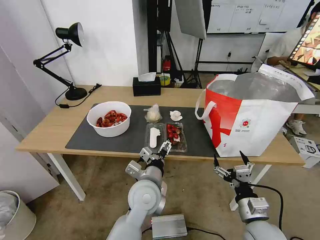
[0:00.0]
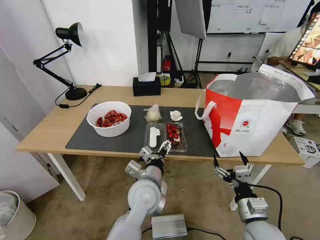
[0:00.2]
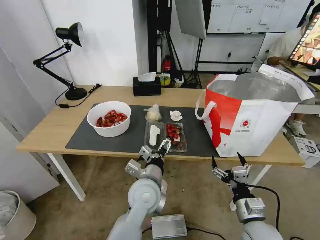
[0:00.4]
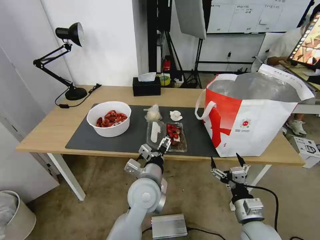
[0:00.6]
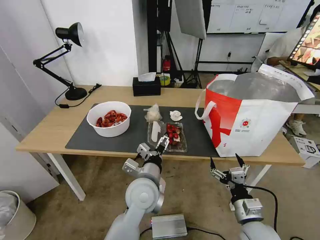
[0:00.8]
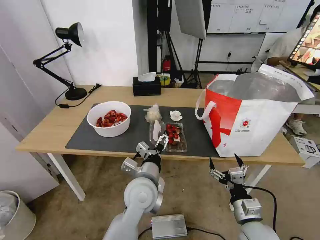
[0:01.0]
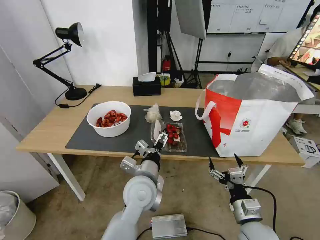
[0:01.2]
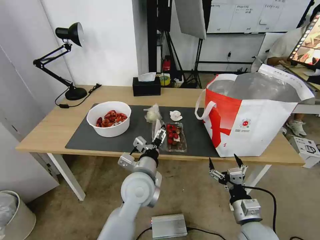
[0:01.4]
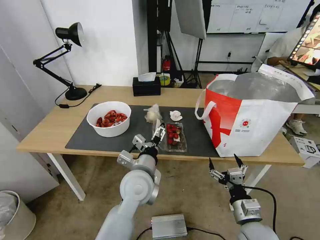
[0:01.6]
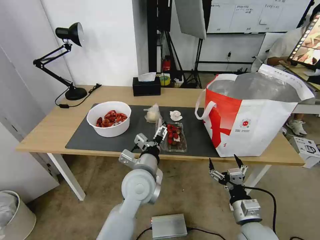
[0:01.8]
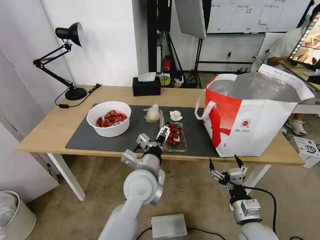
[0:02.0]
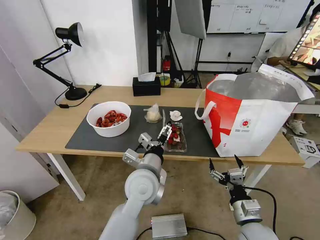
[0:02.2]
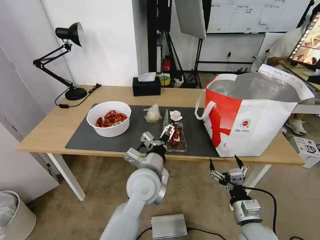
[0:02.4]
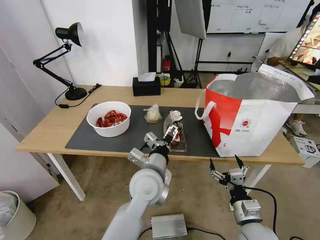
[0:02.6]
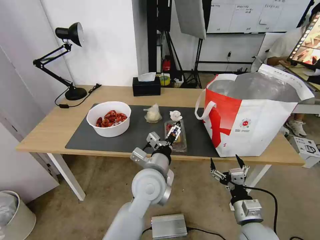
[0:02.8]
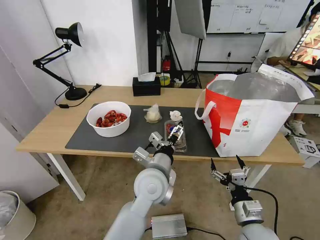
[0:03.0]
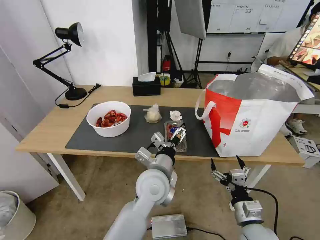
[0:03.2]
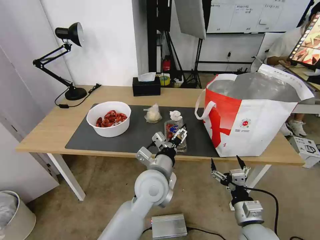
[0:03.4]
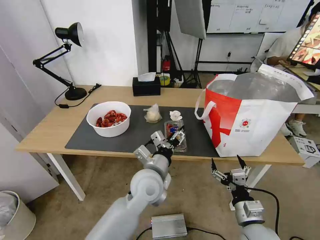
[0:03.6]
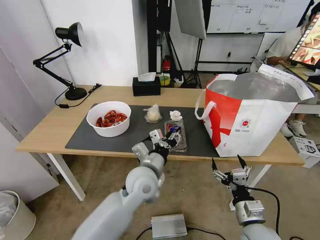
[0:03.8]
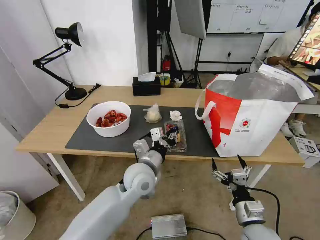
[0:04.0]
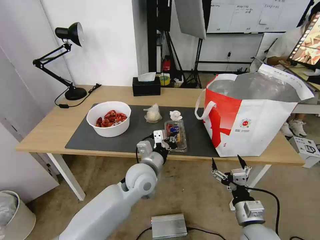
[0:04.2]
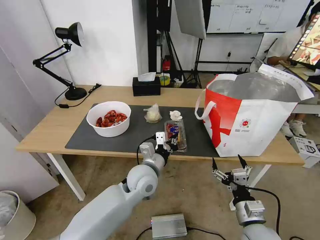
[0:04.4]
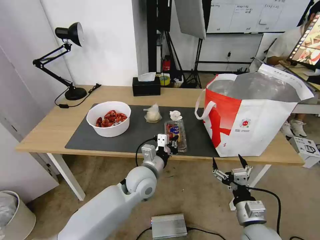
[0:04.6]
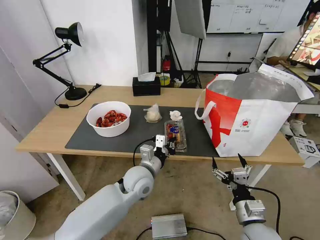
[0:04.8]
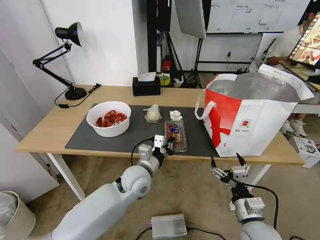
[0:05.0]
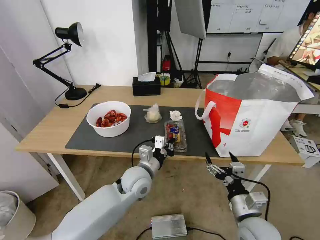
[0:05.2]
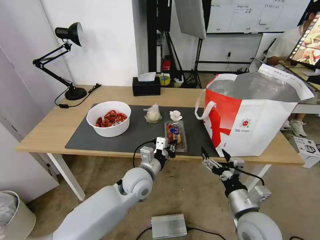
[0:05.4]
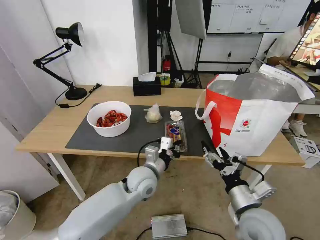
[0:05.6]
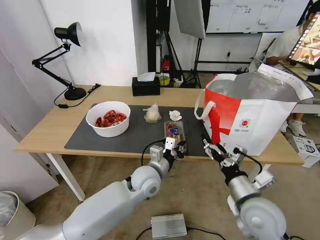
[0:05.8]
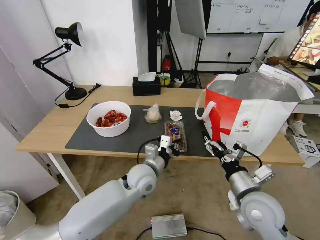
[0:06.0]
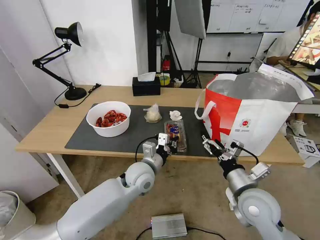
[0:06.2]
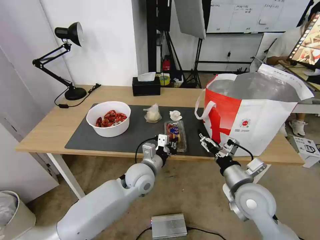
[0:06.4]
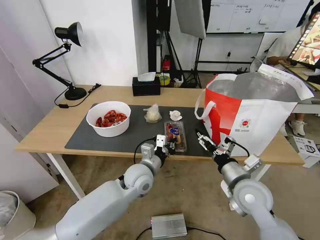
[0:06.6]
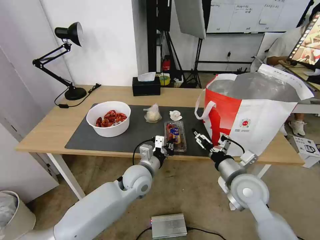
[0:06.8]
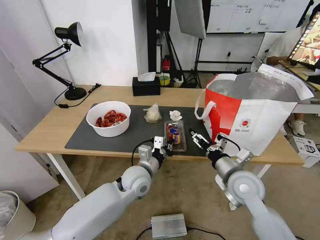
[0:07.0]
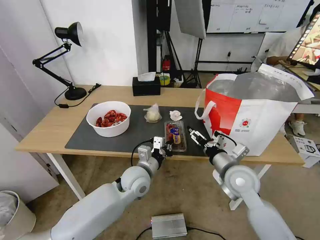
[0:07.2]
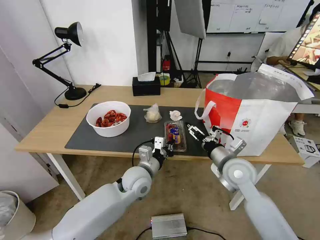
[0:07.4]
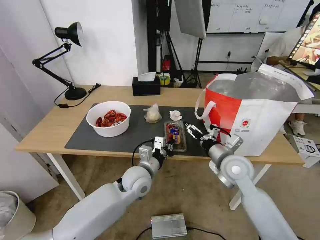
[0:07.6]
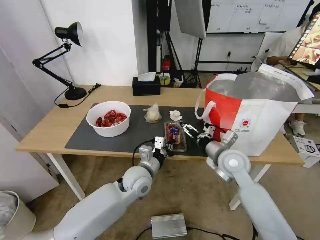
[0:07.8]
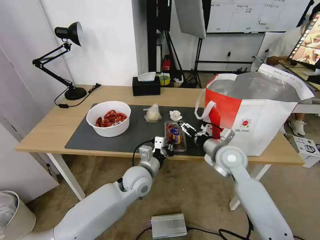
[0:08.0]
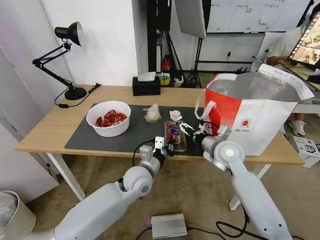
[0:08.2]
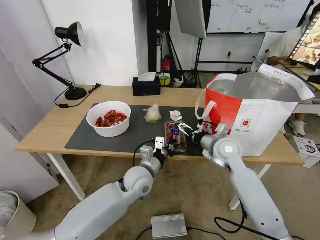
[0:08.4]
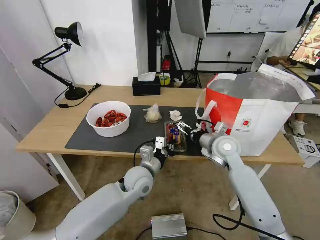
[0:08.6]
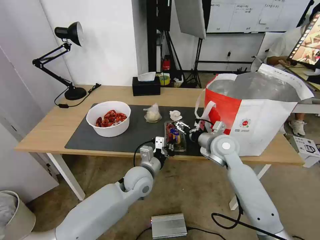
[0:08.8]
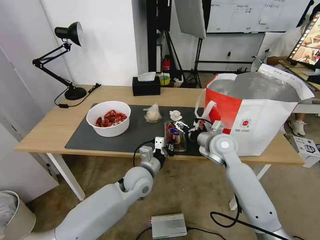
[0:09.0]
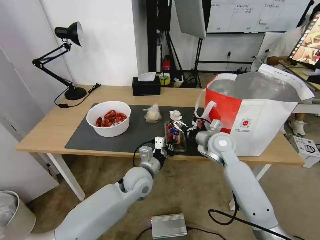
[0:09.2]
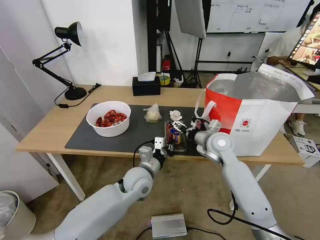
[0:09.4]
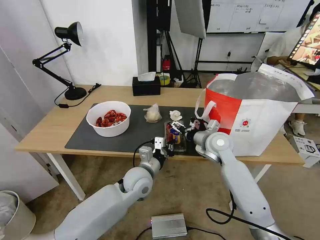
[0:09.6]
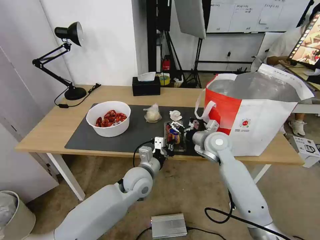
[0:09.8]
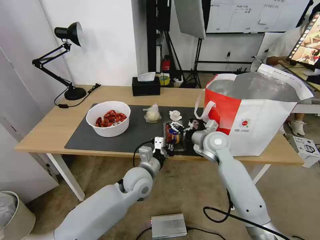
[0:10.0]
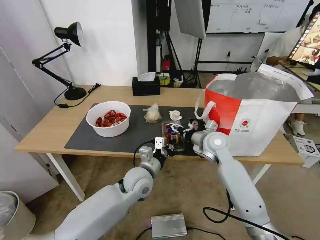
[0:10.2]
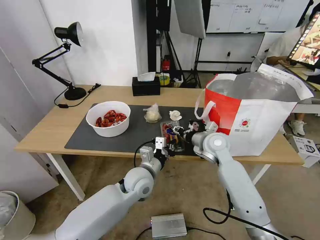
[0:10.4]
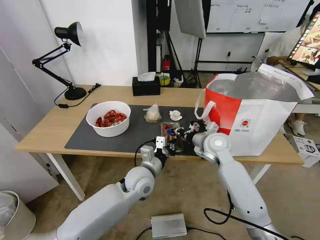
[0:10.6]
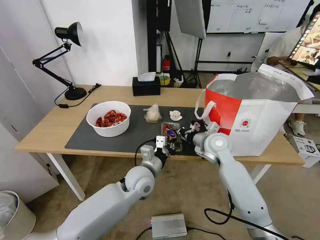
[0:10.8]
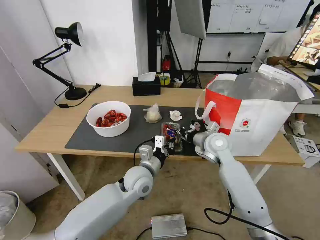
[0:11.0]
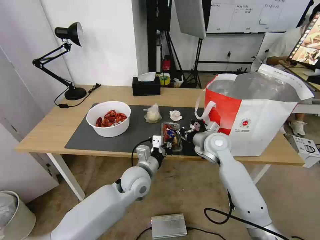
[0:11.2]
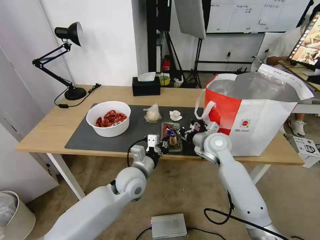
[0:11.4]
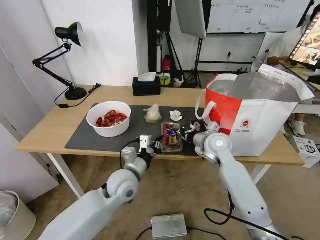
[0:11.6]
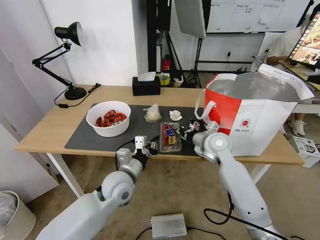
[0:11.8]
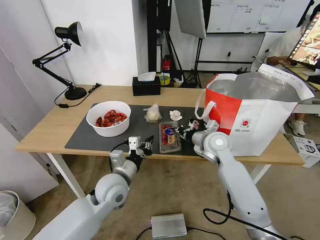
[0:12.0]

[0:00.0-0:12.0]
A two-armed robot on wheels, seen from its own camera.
Task of the whole recording: Pick up the trash from the table and place it into the takeout bag.
0:00.0 to 0:03.0: The grippers make only small movements.
0:03.0 to 0:04.4: The left gripper moves some 5 cm, and closes up.
0:04.4 to 0:06.0: The right gripper shifts roughly 10 cm upward and forward.
0:06.0 to 0:07.6: The right gripper shifts approximately 10 cm forward.
0:07.6 to 0:09.0: The right gripper shifts approximately 5 cm forward.
0:09.0 to 0:10.4: The right gripper closes its fingers.
0:10.4 to 0:12.0: The left gripper travels to the left by about 10 cm. Meanwhile the right gripper closes.

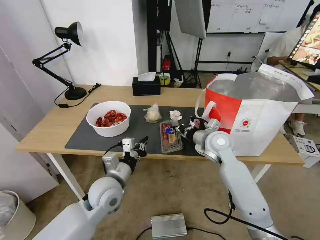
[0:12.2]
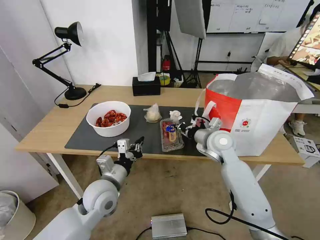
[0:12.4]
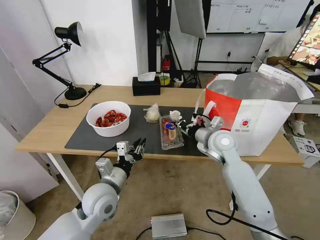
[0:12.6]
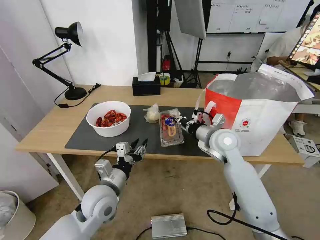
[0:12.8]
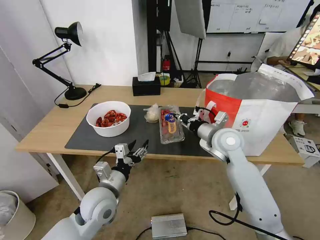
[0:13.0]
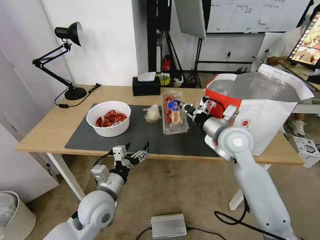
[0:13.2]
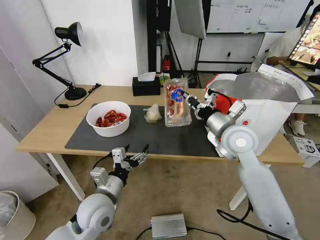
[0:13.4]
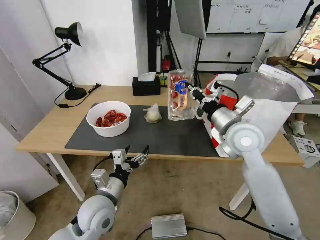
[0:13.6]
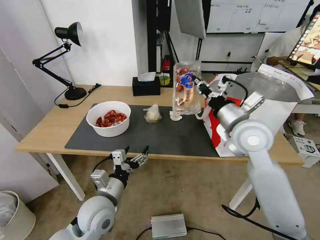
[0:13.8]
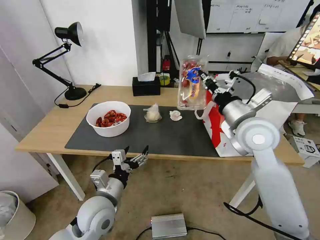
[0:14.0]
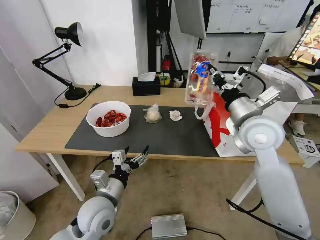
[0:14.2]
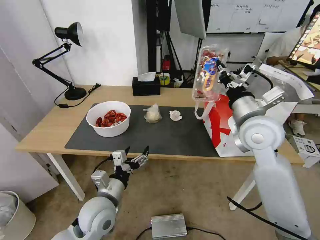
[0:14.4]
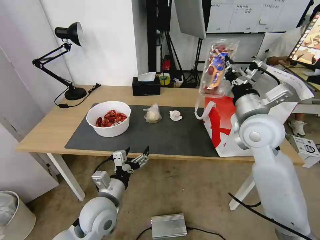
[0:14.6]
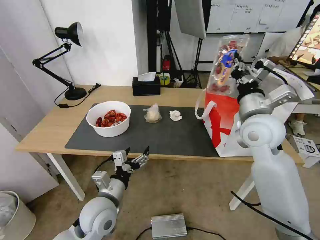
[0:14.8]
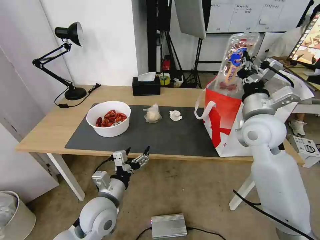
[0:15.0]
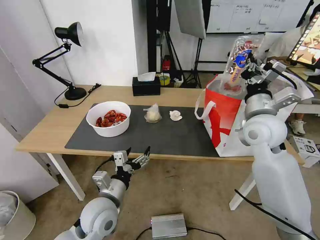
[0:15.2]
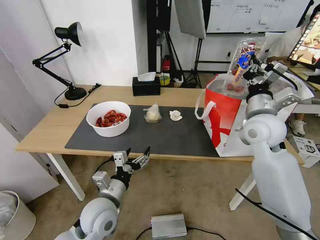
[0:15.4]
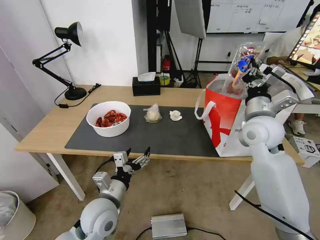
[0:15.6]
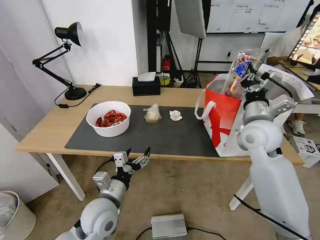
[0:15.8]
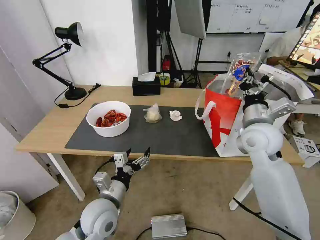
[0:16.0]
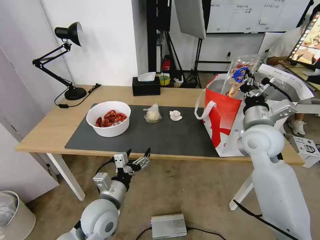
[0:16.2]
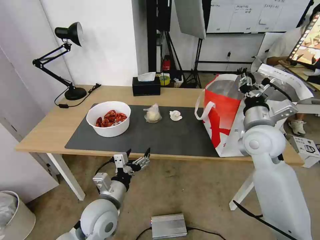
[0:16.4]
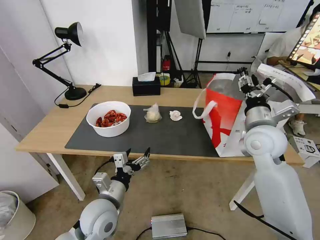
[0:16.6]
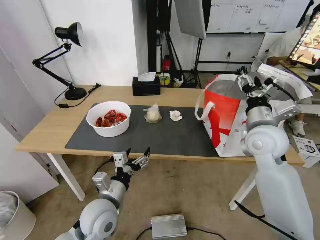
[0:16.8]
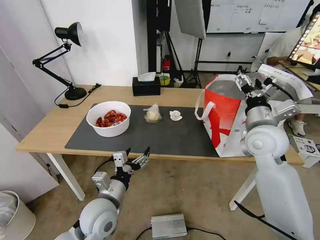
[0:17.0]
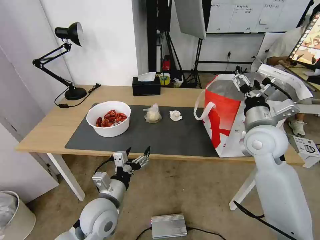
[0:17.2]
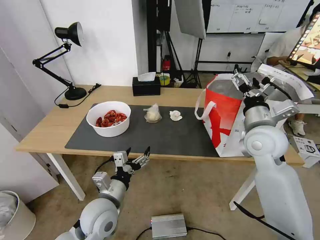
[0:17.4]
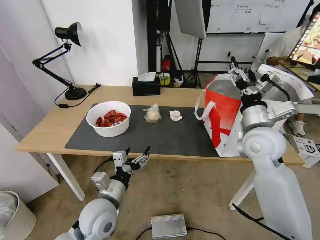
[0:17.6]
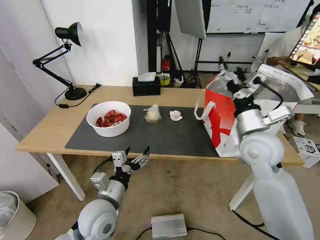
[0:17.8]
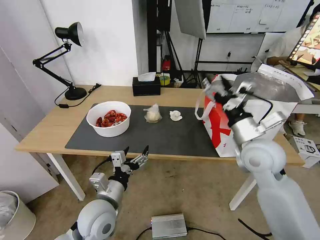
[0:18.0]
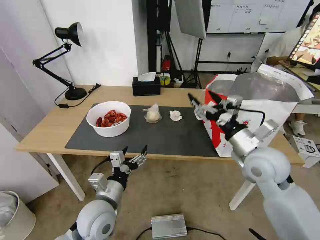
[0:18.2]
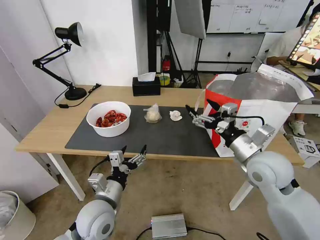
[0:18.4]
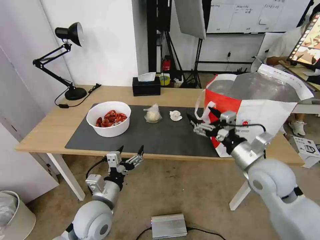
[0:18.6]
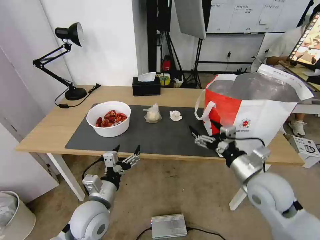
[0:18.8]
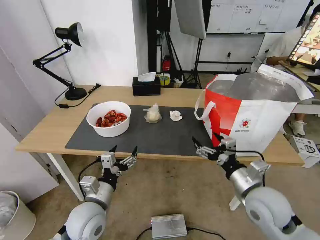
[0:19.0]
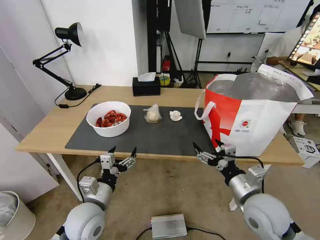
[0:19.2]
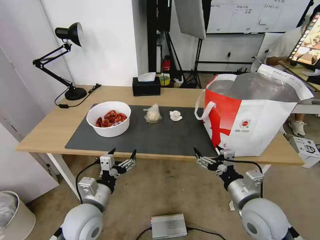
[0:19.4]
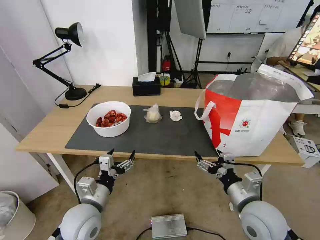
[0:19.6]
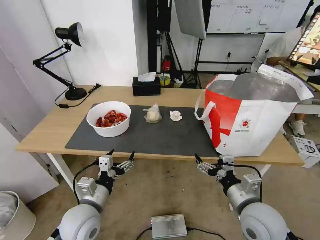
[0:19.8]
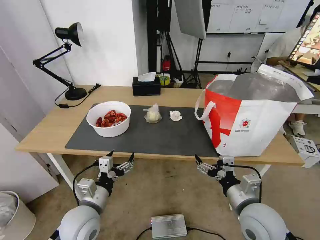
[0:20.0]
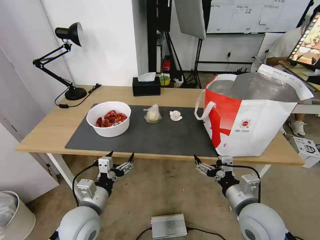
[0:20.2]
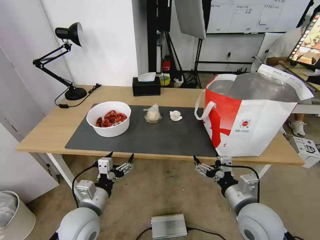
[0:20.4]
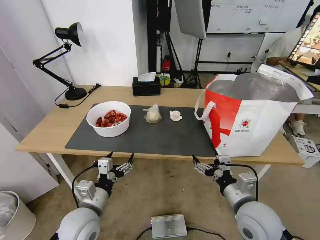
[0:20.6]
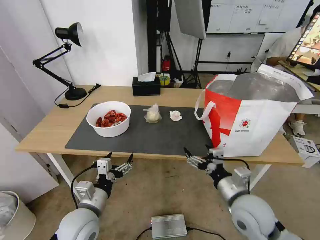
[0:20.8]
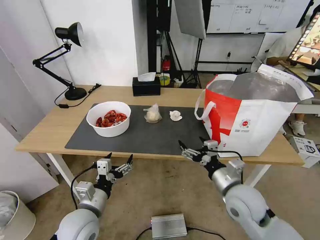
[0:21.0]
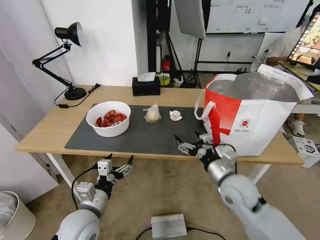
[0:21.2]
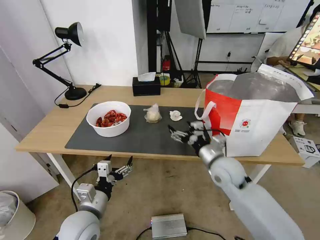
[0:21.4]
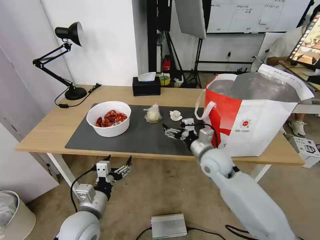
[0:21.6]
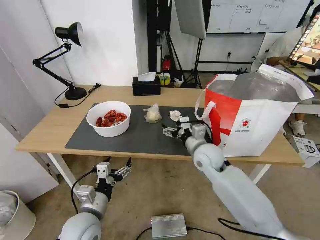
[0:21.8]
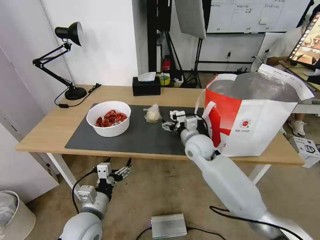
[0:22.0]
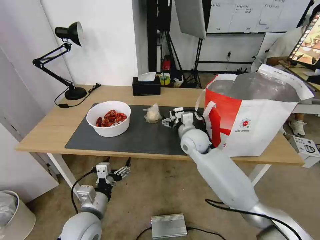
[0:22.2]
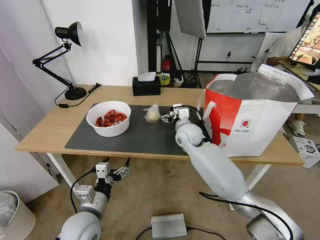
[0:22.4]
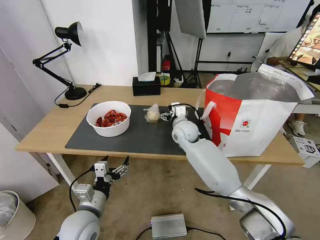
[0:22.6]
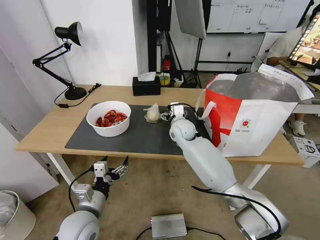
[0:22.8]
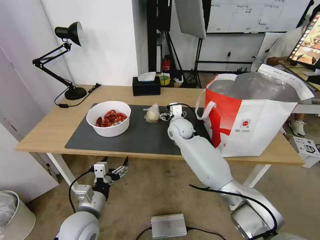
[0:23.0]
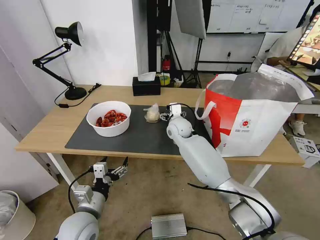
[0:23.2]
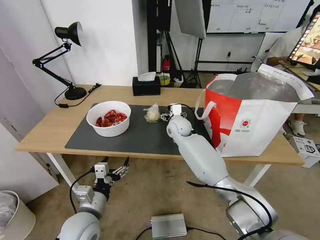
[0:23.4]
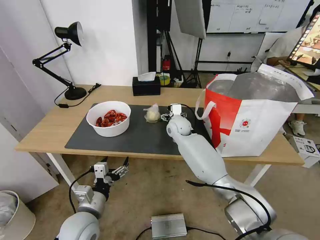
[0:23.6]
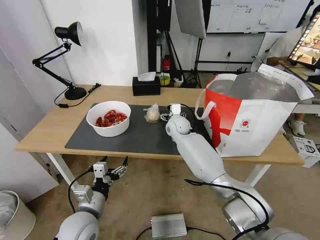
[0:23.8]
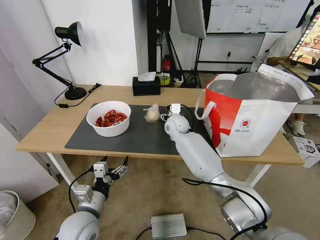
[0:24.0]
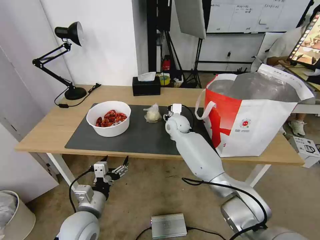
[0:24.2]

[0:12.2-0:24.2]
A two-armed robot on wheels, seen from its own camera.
Task of the whole recording: Pick up the trash from the table and place it into the takeout bag.
0:12.2 to 0:13.8: The right gripper moves upward and backward, roughly 15 cm, while the left gripper shifts about 5 cm backward, and opens up.
0:15.2 to 0:16.6: The right gripper opens.
0:16.6 to 0:18.2: The right gripper moves backward, approximately 5 cm, and opens its fingers.
0:18.2 to 0:19.8: The right gripper travels backward and downward by roughly 15 cm.
0:19.8 to 0:21.2: The right gripper goes some 10 cm forward.
0:21.2 to 0:22.6: The right gripper heads forward and to the left, covering roughly 25 cm.
0:22.6 to 0:24.2: The right gripper travels forward by approximately 5 cm, and closes.
